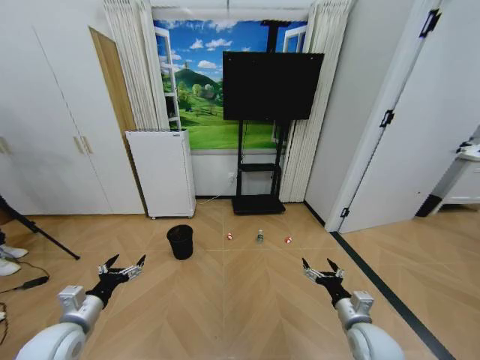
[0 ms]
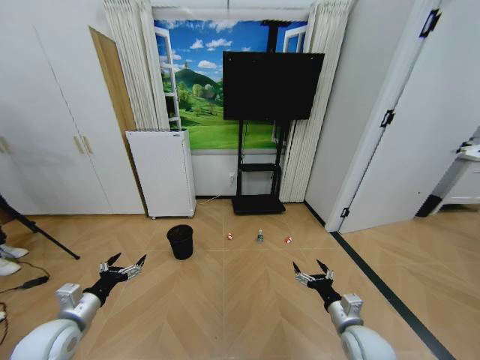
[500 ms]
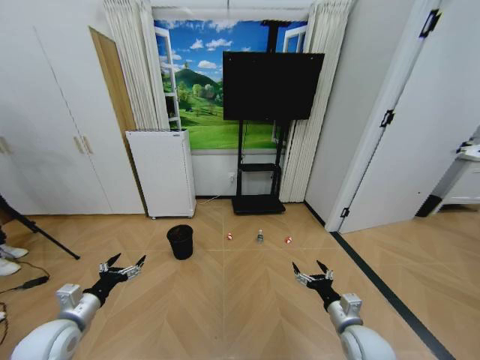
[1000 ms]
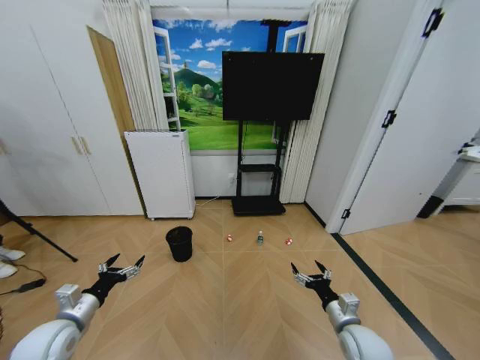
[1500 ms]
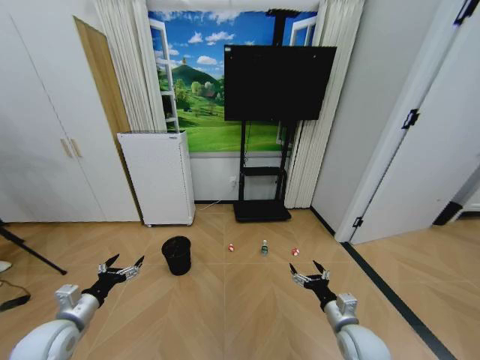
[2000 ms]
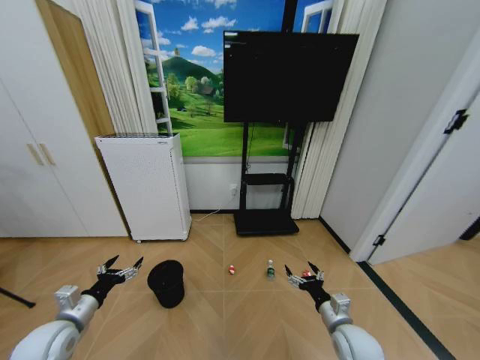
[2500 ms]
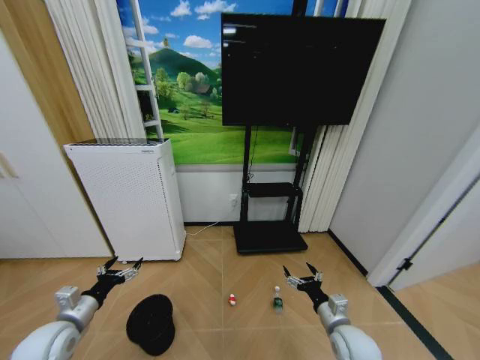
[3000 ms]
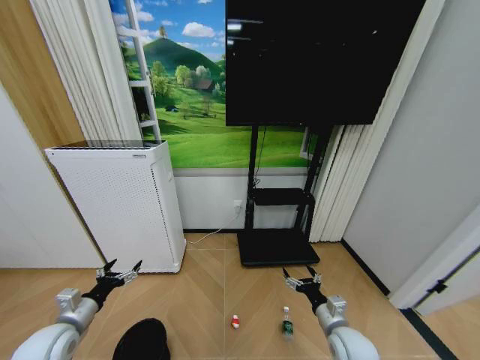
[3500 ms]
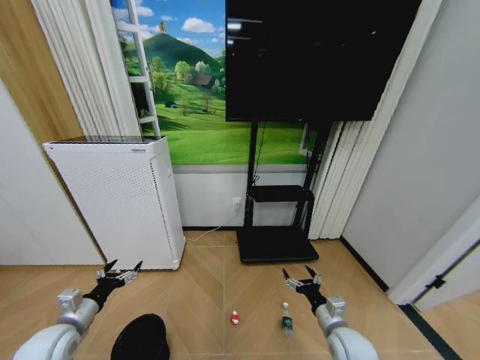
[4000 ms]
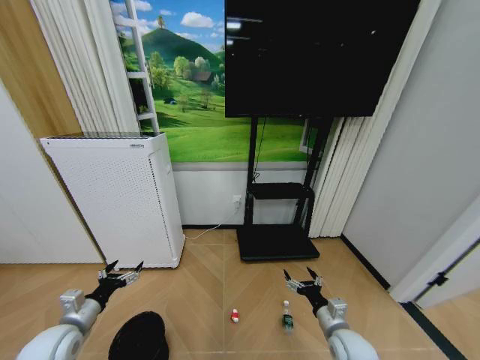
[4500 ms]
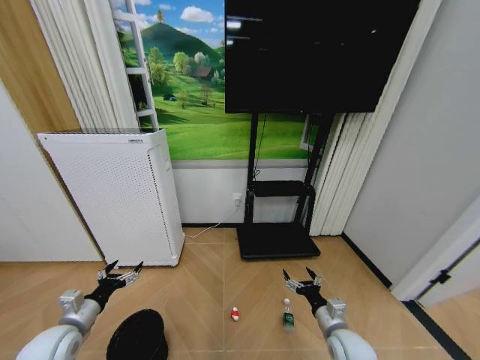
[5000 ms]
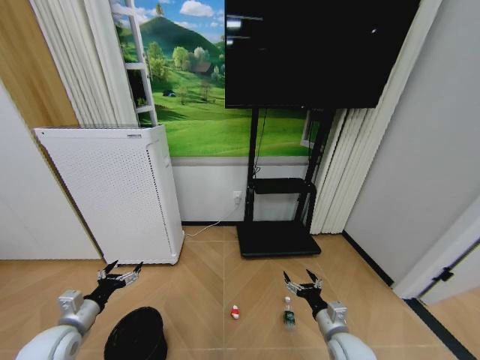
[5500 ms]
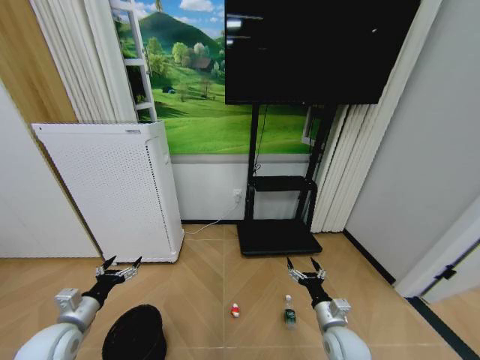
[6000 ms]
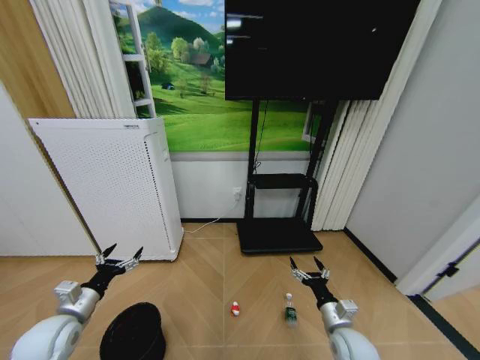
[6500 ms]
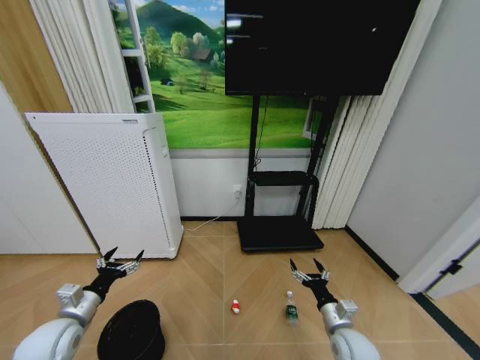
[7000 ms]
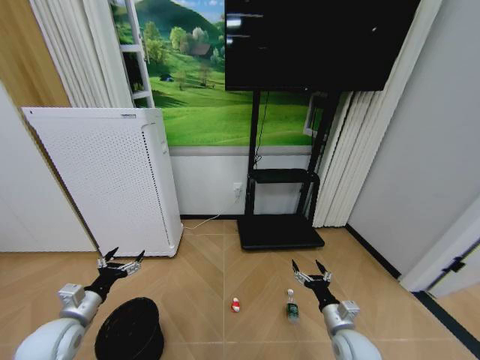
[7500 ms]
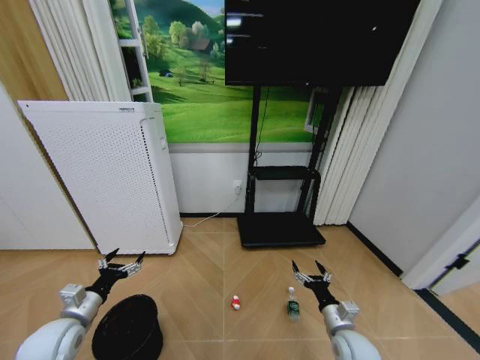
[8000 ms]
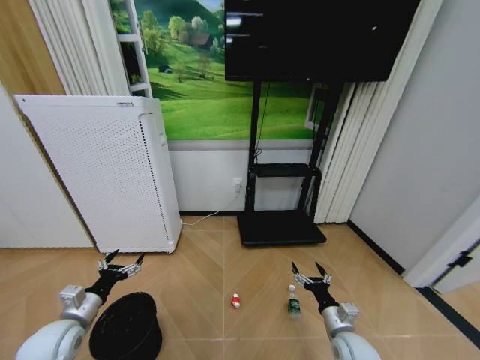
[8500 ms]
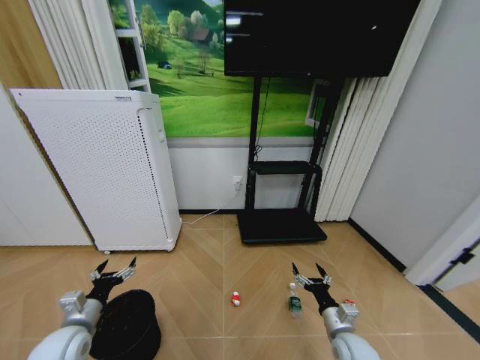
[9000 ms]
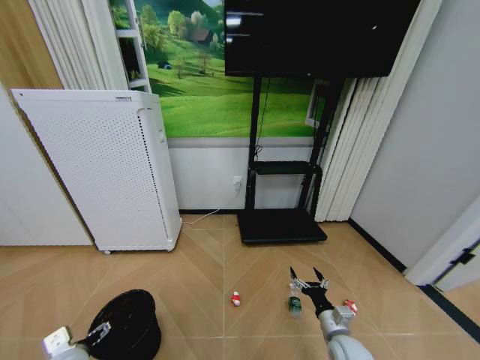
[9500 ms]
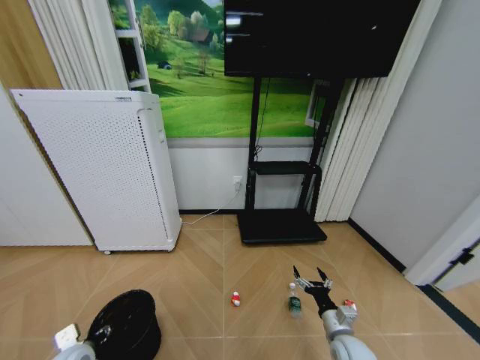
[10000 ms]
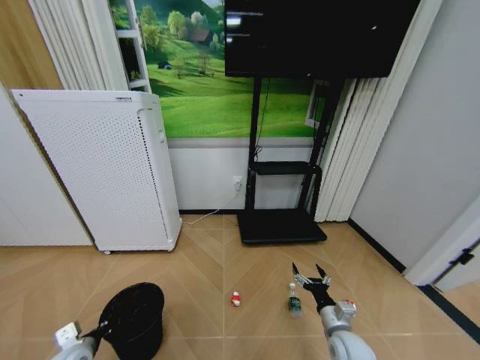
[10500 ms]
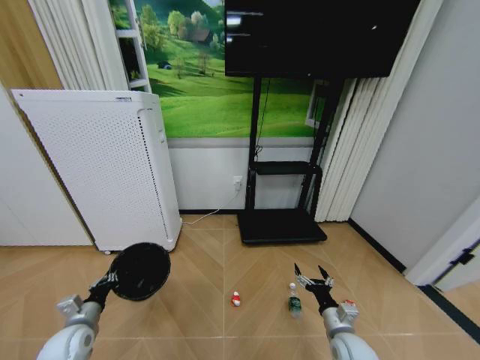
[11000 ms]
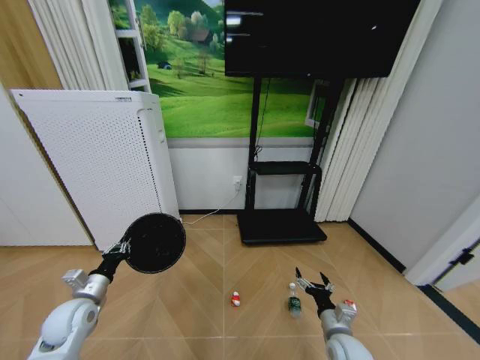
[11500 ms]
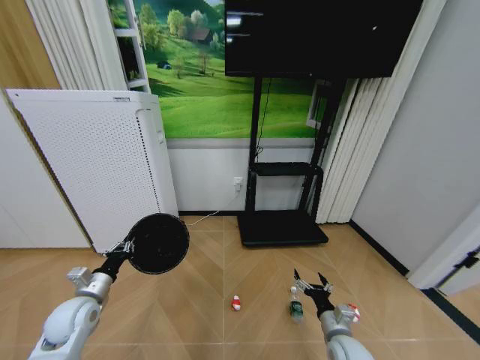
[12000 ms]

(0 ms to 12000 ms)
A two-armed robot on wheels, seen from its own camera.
Task of the whole recording: Pick up the trash bin and place the garbage on the floor into it.
4000 ms - 6000 ms: The grippers make only small movements.
8000 ms - 10000 ms: The left gripper is displaced downward by roughly 5 cm.
10000 ms - 12000 ms: The left gripper travels forward and upward by approximately 10 cm, and closes up.

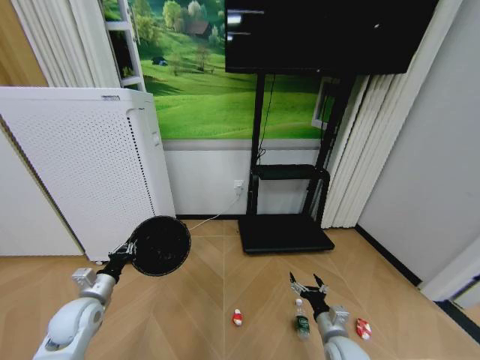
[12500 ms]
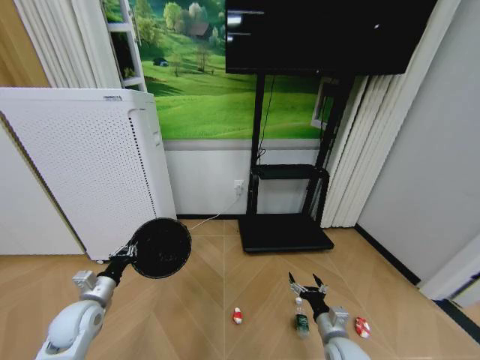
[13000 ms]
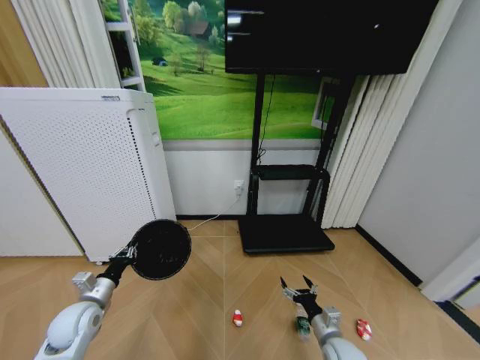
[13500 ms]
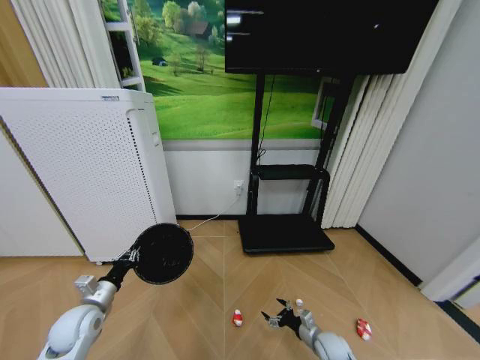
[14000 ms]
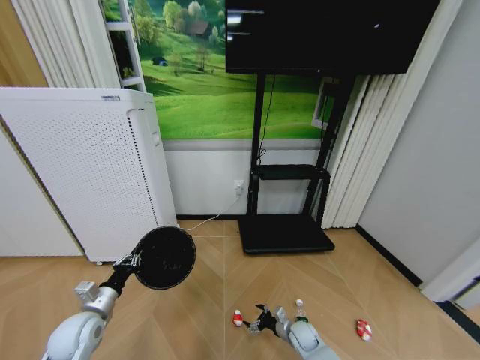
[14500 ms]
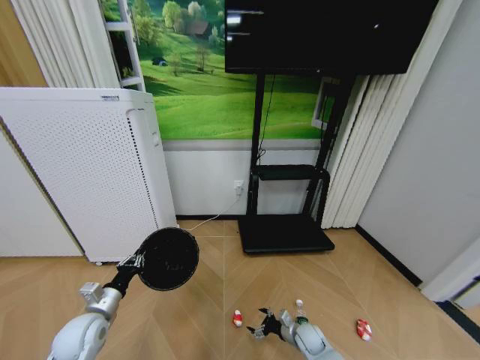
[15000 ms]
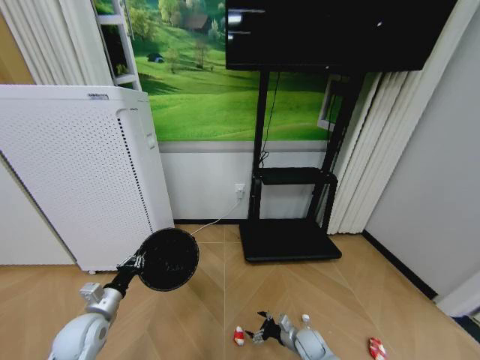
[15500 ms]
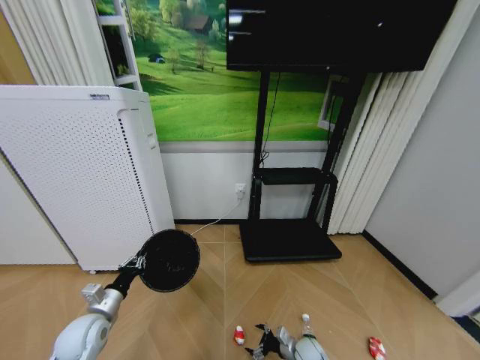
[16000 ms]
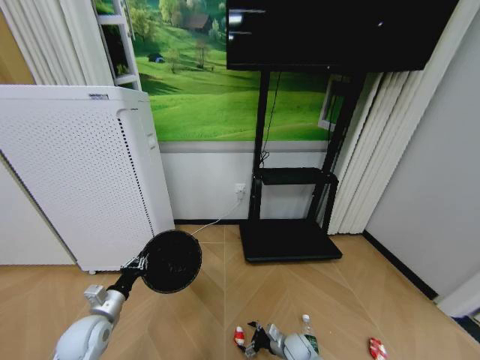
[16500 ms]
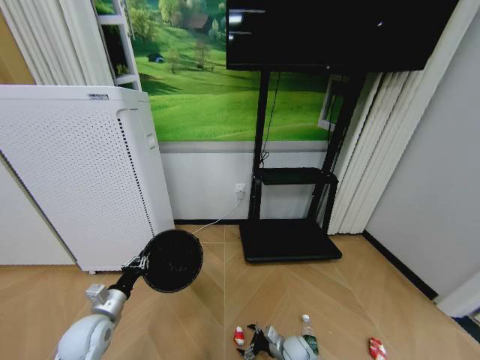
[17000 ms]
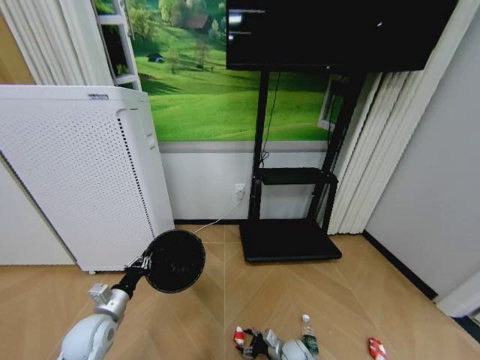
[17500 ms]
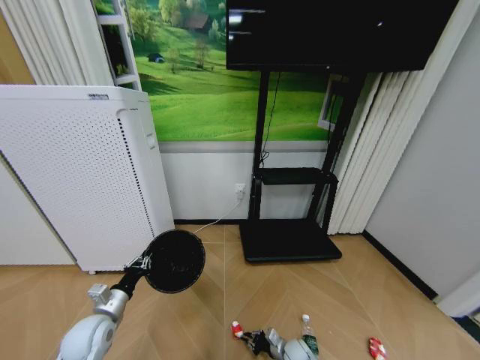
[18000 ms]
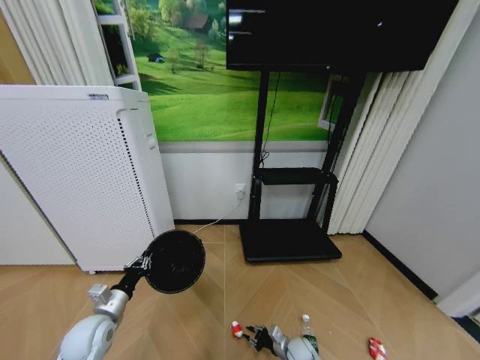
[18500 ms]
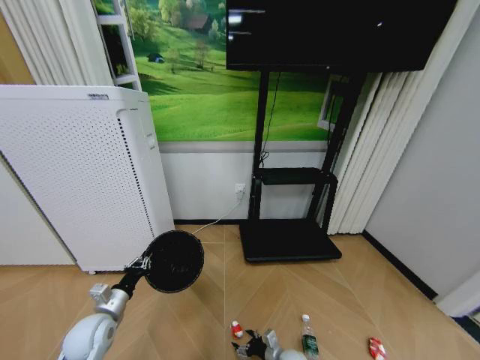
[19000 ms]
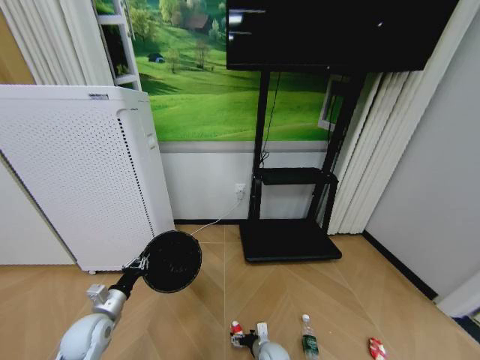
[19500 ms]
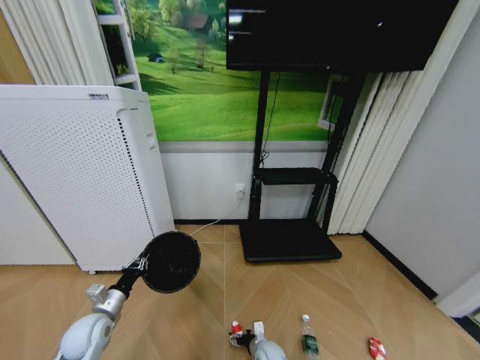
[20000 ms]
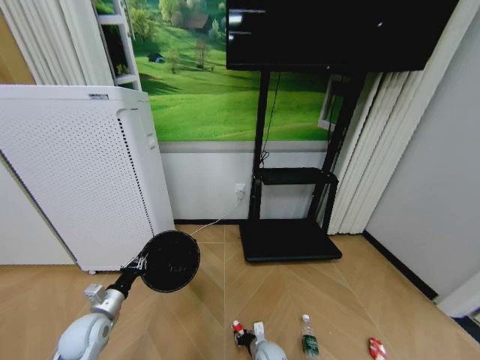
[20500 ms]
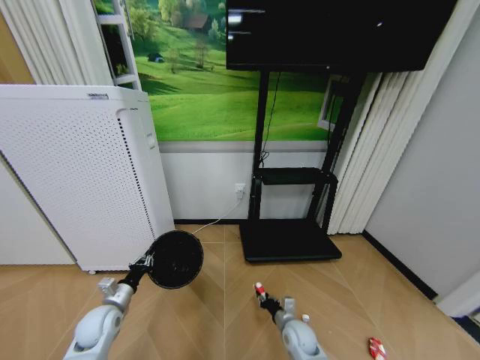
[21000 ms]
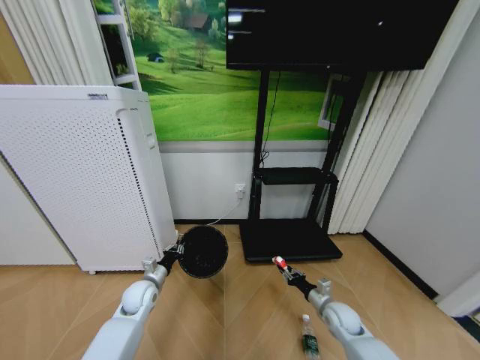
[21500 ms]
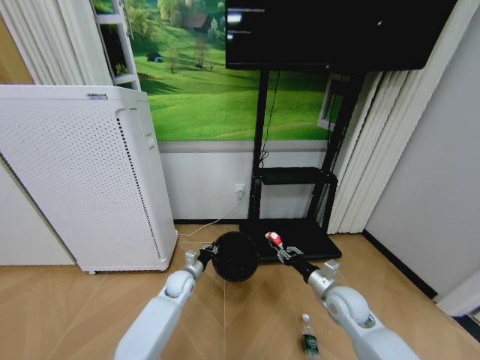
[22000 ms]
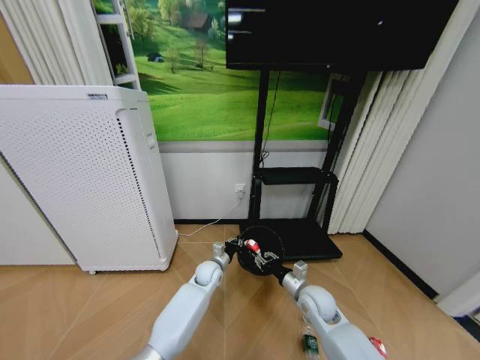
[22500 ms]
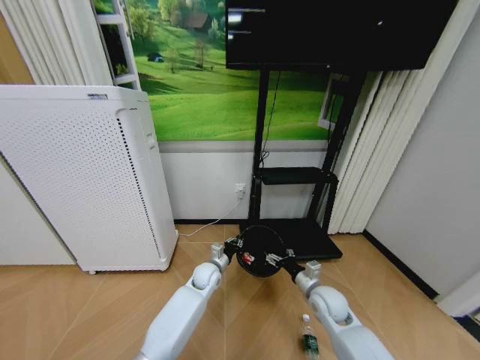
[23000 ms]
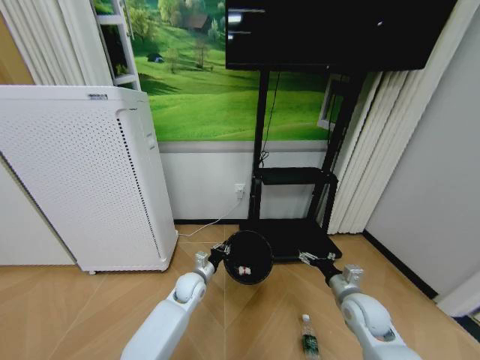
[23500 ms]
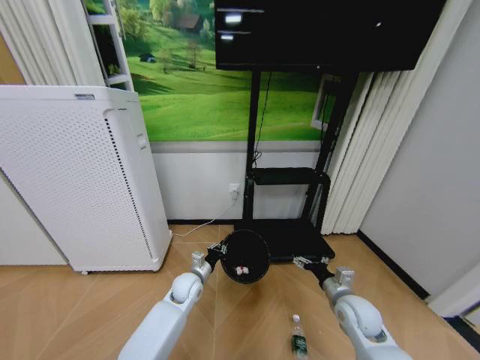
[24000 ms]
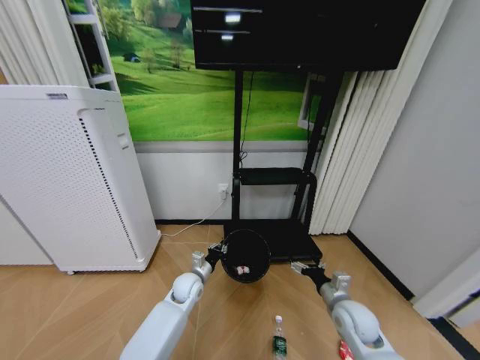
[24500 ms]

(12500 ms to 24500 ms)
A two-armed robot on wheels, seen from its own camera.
Task of the whole recording: Pick up the trash bin and place the garbage on the floor into it.
12500 ms - 14500 ms: The right gripper shifts approximately 20 cm downward and forward.
16500 ms - 18500 ms: The right gripper closes up.
18500 ms - 20500 ms: The right gripper is displaced to the left by about 10 cm, and opens, then closes once more.
20500 ms - 22500 ms: The right gripper is displaced upward and to the right by some 25 cm. The left gripper is displaced to the right and forward by some 35 cm.
22500 ms - 24500 ms: The left gripper moves to the left and backward, some 10 cm; the right gripper shifts roughly 10 cm to the right, and opens.

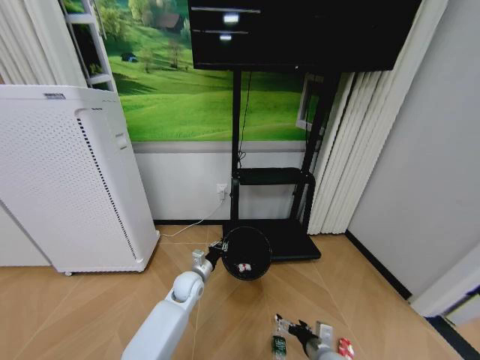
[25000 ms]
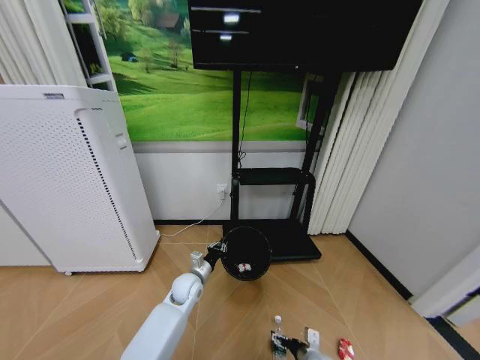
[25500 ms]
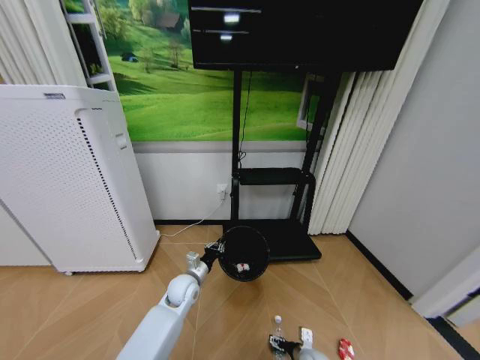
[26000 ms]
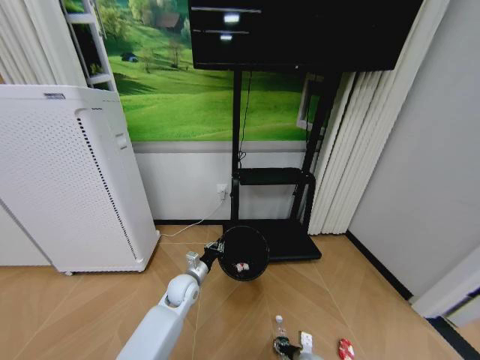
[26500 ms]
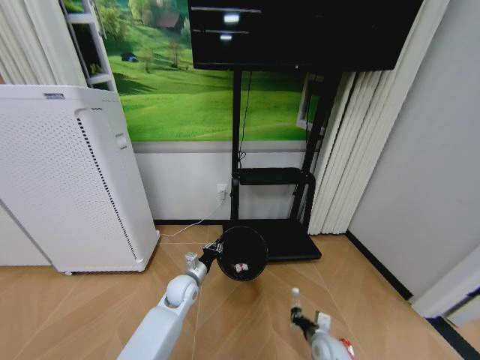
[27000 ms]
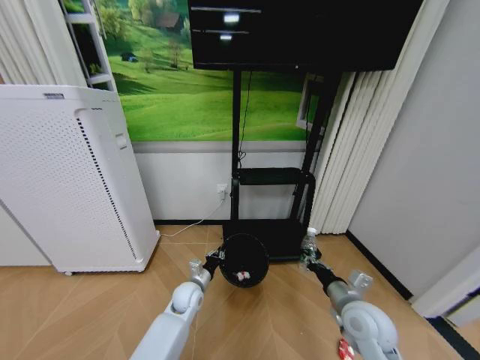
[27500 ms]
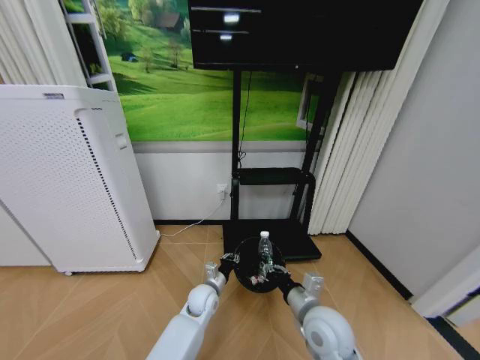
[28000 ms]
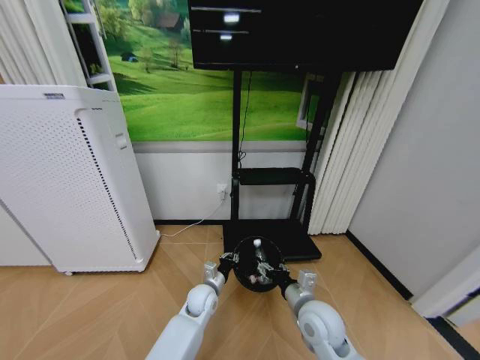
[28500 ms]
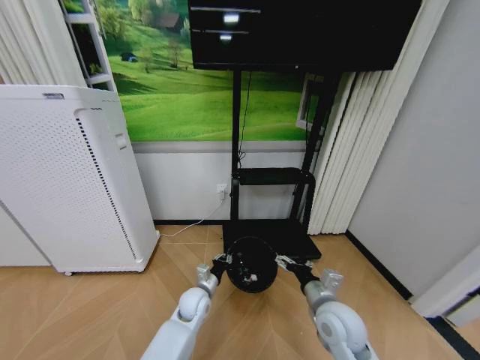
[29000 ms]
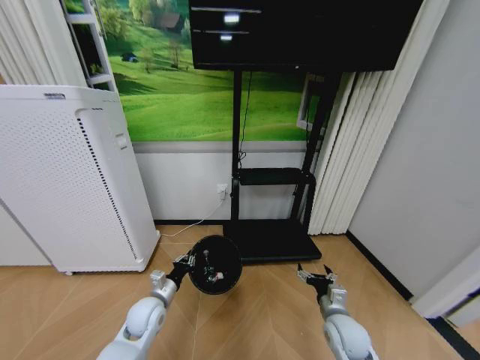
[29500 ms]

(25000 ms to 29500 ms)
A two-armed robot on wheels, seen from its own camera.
Task of the whole recording: Pick up the trash bin and place the garbage on the floor into it.
25000 ms - 27000 ms: The right gripper is displaced downward by approximately 5 cm, and closes its fingers.
27000 ms - 29500 ms: The left gripper heads to the left and backward, covering approximately 10 cm. Meanwhile the right gripper is displaced upward by some 10 cm, and opens its fingers.
